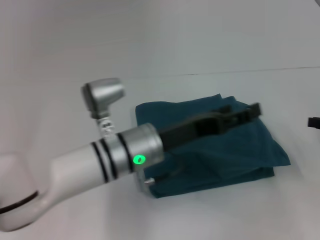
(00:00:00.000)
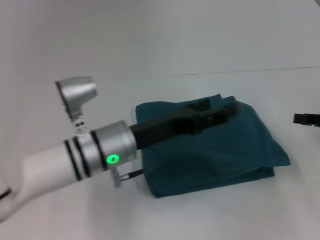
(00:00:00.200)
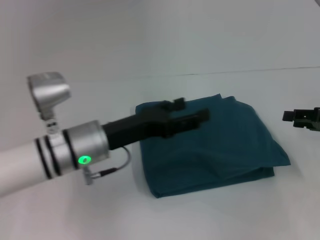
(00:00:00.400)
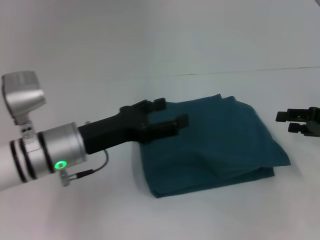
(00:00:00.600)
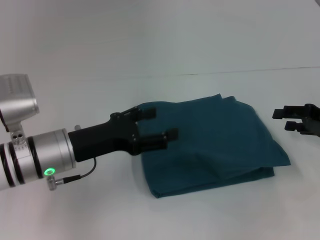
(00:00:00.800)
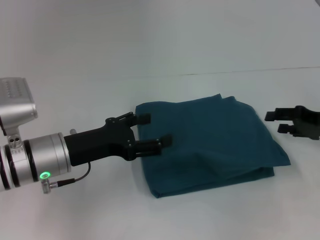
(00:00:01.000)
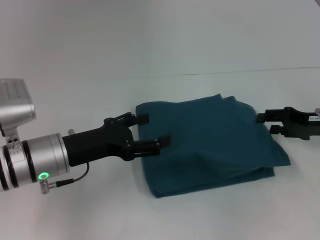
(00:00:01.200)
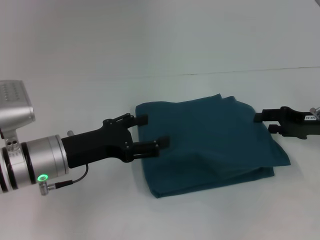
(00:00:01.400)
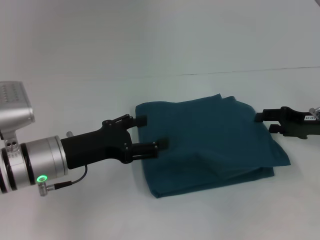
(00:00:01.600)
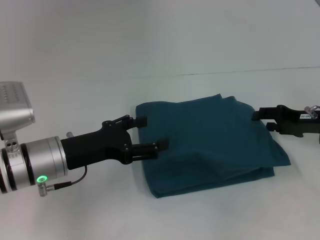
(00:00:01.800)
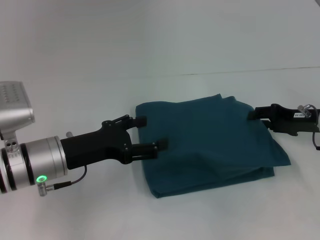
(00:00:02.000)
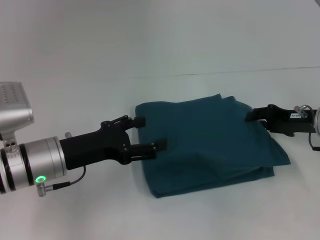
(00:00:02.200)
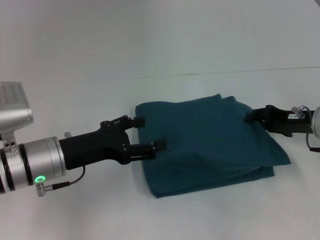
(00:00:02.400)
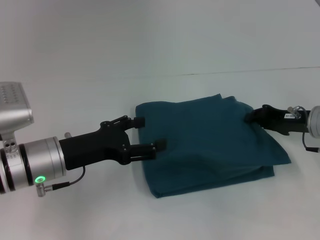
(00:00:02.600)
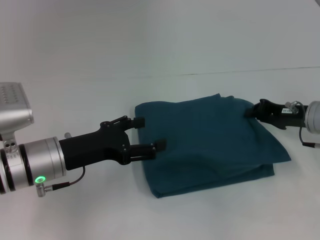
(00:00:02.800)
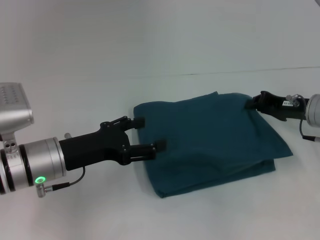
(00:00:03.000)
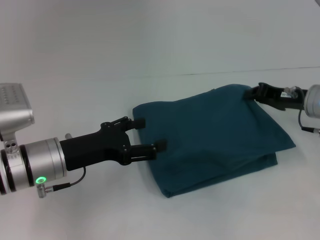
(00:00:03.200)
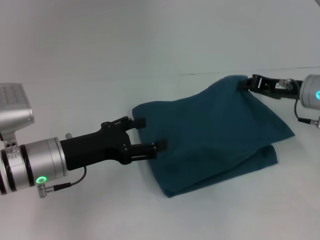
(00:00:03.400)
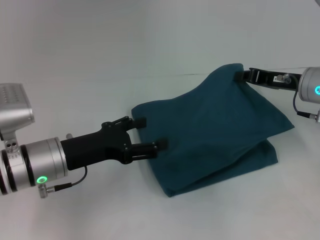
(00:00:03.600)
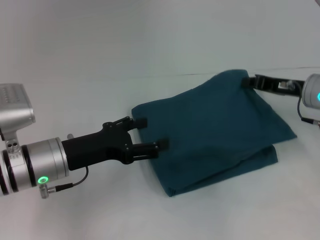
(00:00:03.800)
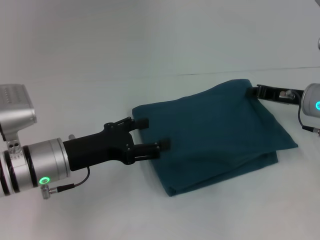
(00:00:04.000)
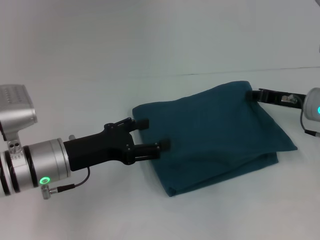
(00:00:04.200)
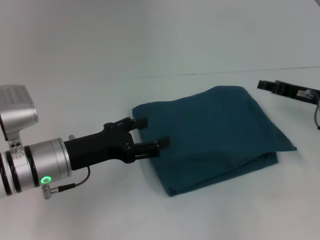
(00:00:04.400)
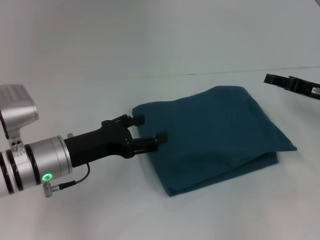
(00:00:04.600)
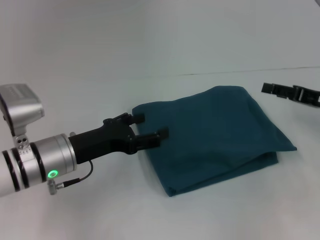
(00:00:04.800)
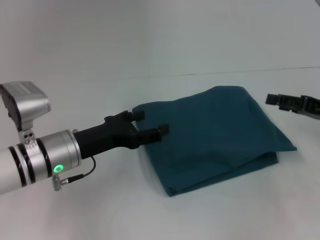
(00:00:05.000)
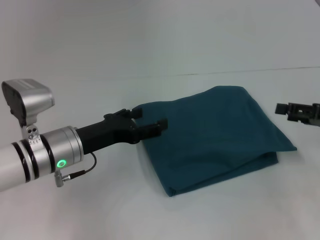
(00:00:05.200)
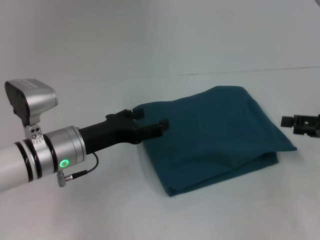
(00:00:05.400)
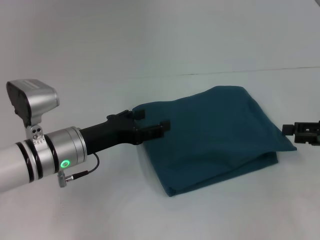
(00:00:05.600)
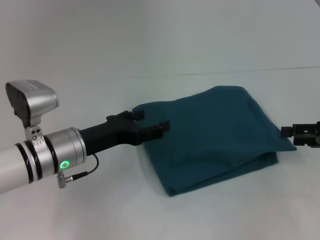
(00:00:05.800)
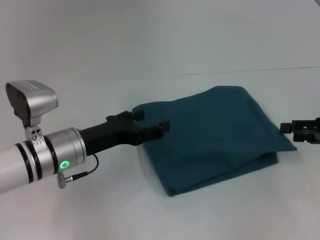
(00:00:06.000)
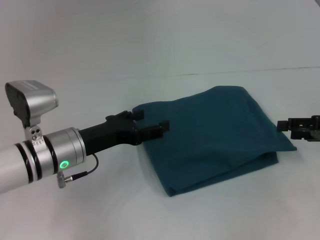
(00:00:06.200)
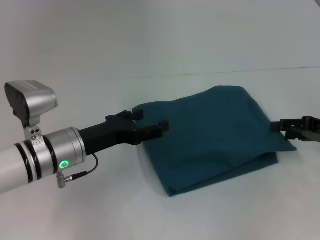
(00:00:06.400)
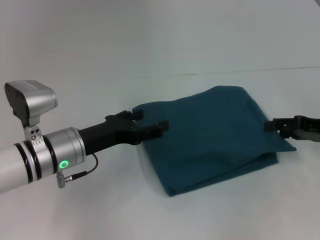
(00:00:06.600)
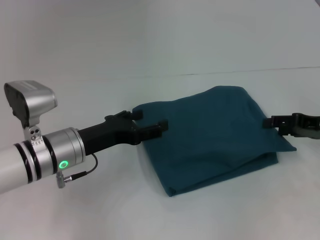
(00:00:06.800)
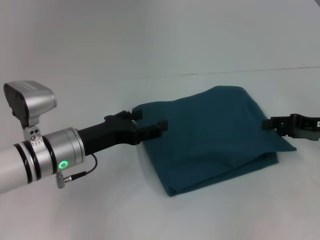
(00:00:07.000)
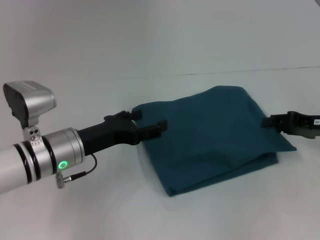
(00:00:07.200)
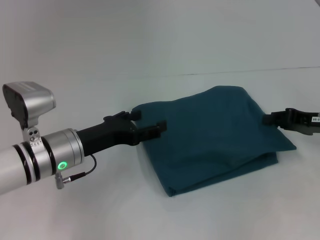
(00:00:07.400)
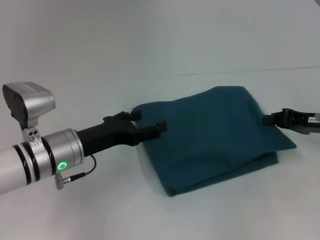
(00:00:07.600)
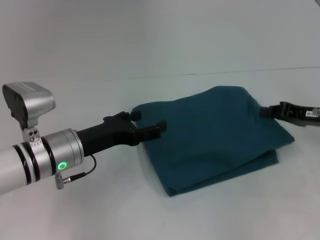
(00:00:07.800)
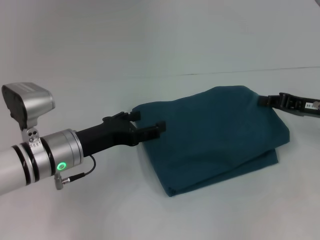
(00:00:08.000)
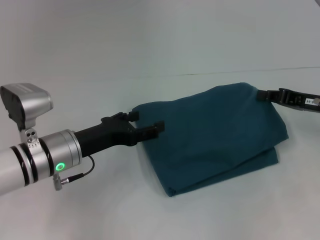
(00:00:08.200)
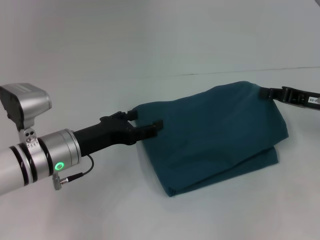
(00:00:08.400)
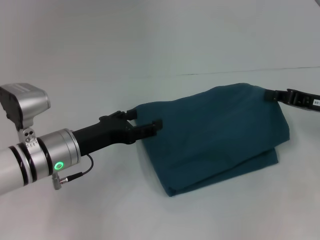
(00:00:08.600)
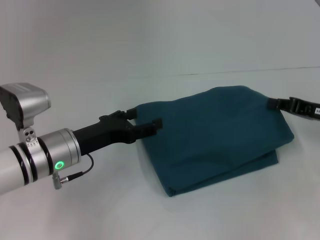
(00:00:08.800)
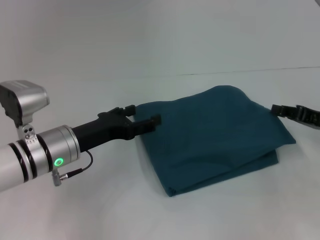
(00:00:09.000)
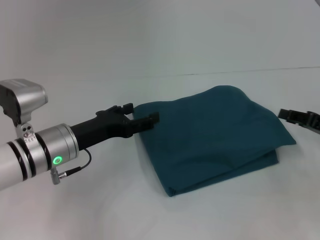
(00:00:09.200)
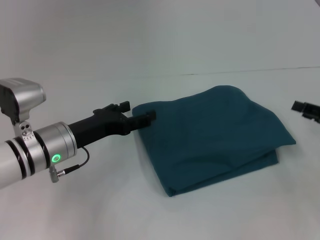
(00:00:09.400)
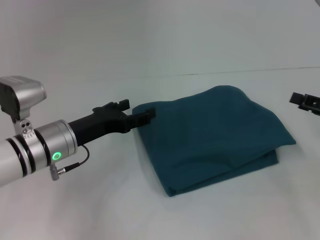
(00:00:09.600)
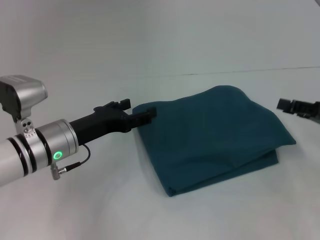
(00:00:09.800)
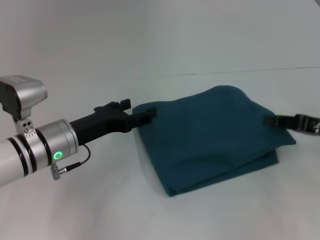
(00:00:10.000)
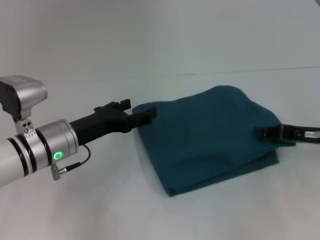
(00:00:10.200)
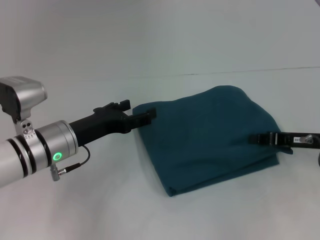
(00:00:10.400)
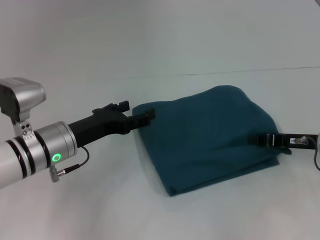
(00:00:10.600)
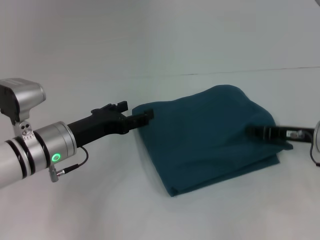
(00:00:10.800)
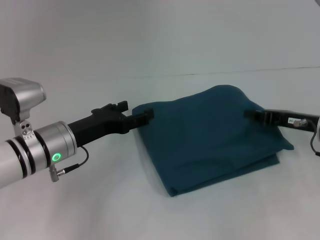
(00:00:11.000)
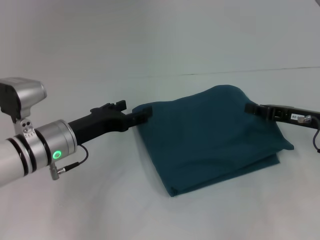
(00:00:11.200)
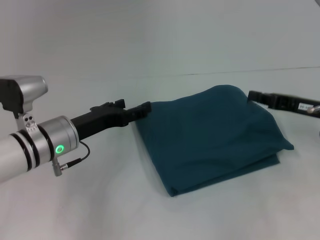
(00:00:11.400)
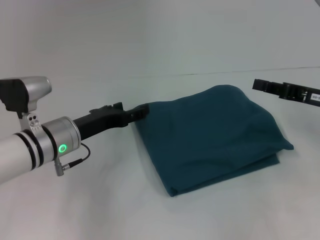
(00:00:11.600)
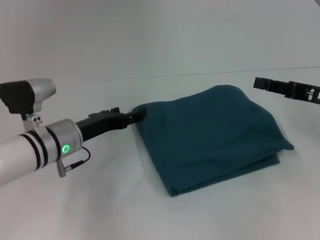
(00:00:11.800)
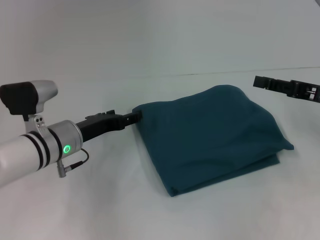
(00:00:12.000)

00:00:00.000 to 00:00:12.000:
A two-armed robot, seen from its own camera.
00:00:00.000 to 00:00:01.600: The left gripper is displaced to the left by some 15 cm, while the right gripper heads to the left, covering roughly 5 cm, and opens its fingers.
00:00:01.600 to 00:00:03.000: The right gripper closes its fingers.
00:00:03.000 to 00:00:04.400: The grippers move only a little.
00:00:04.400 to 00:00:06.000: The right gripper heads backward and to the right, covering approximately 10 cm, and opens up.
00:00:06.000 to 00:00:07.600: The right gripper changes place by roughly 5 cm, and closes up.
00:00:07.600 to 00:00:09.000: The grippers make only small movements.
00:00:09.000 to 00:00:10.400: The right gripper opens, then closes again.
00:00:10.400 to 00:00:12.000: The right gripper goes some 5 cm upward.

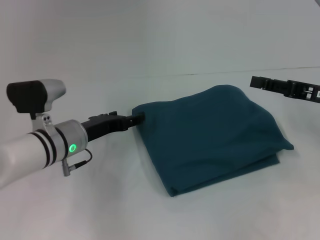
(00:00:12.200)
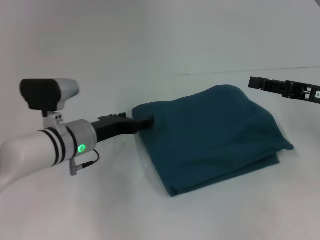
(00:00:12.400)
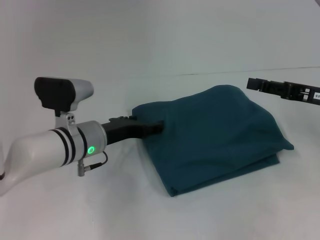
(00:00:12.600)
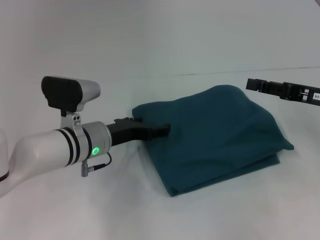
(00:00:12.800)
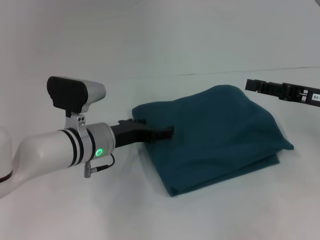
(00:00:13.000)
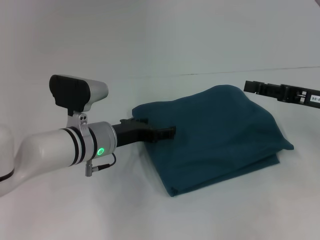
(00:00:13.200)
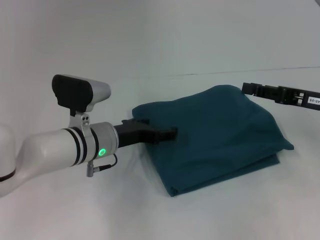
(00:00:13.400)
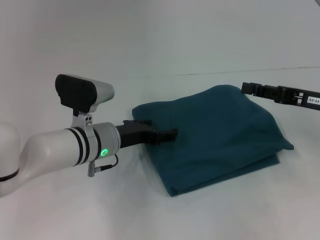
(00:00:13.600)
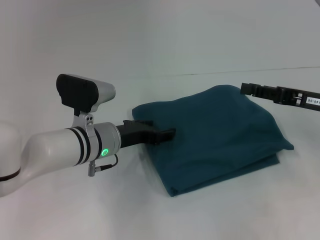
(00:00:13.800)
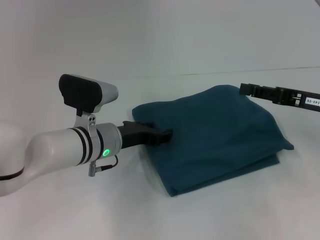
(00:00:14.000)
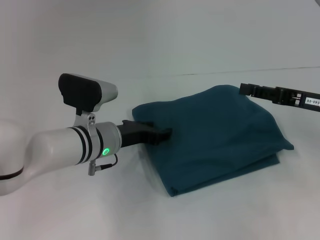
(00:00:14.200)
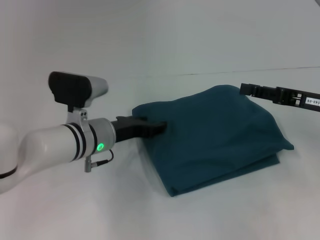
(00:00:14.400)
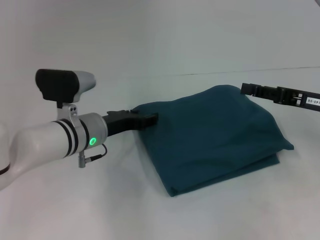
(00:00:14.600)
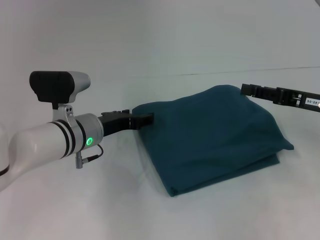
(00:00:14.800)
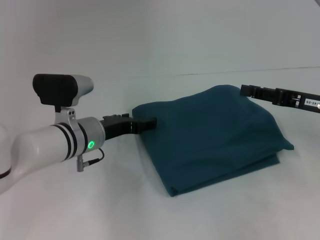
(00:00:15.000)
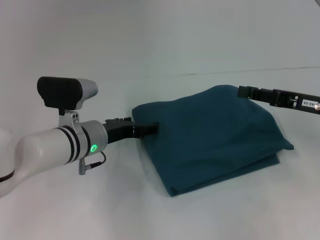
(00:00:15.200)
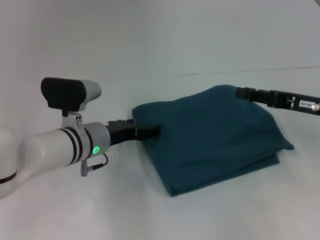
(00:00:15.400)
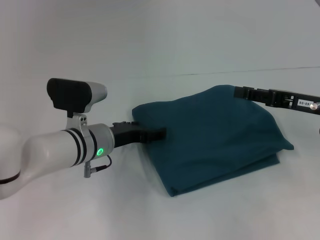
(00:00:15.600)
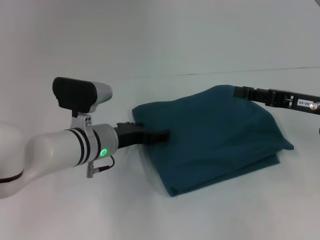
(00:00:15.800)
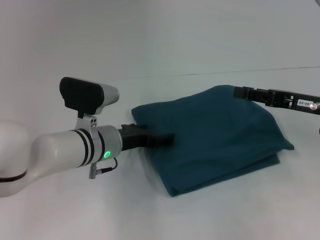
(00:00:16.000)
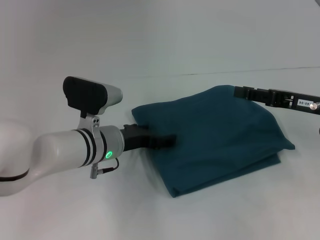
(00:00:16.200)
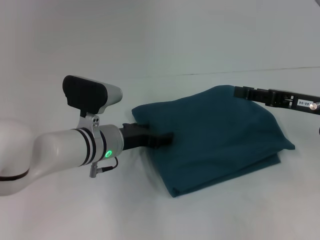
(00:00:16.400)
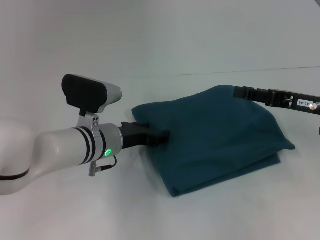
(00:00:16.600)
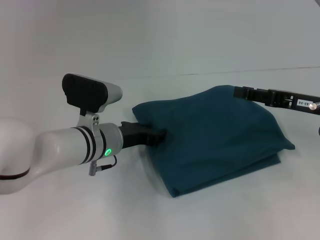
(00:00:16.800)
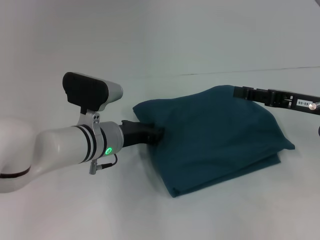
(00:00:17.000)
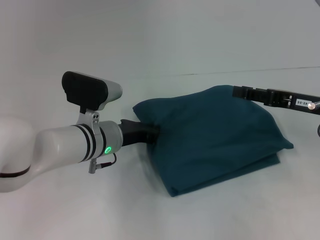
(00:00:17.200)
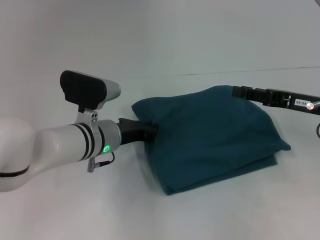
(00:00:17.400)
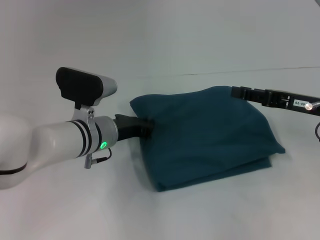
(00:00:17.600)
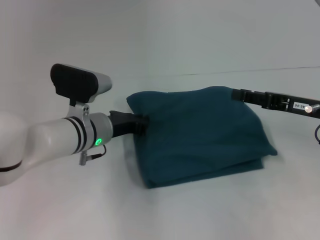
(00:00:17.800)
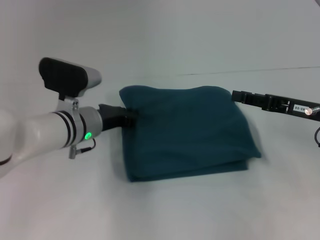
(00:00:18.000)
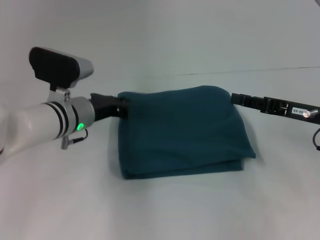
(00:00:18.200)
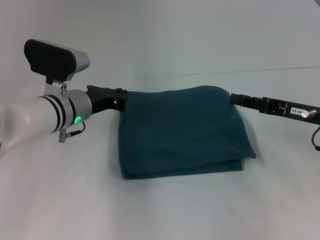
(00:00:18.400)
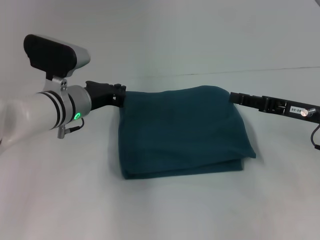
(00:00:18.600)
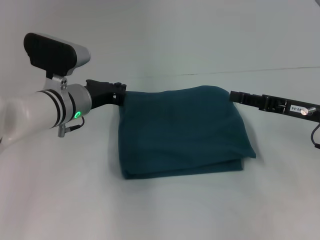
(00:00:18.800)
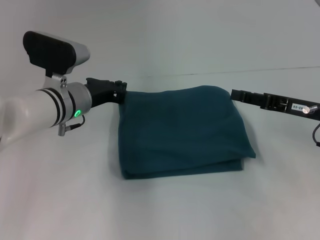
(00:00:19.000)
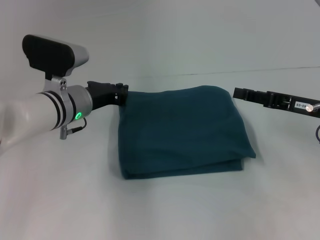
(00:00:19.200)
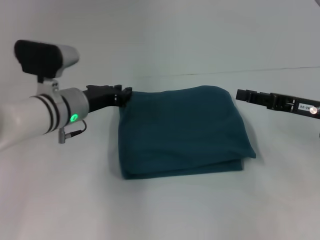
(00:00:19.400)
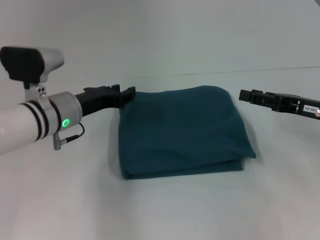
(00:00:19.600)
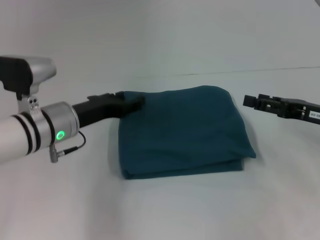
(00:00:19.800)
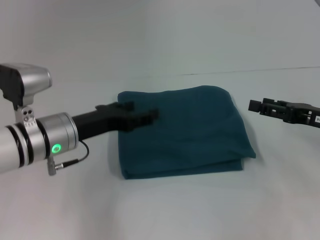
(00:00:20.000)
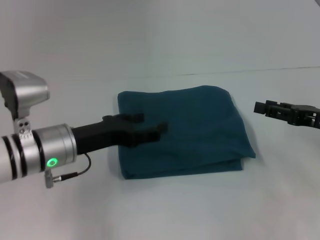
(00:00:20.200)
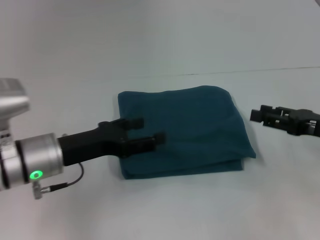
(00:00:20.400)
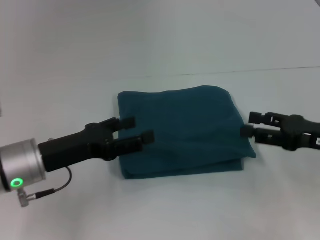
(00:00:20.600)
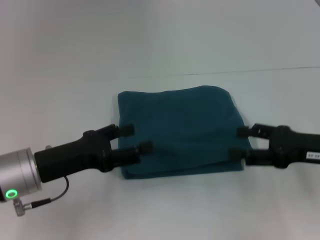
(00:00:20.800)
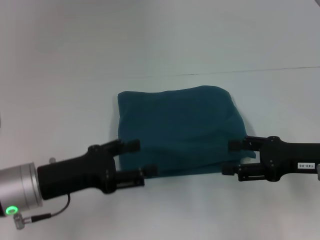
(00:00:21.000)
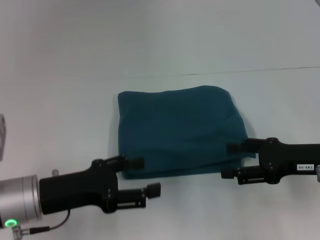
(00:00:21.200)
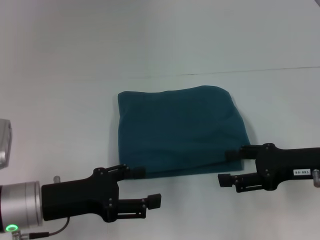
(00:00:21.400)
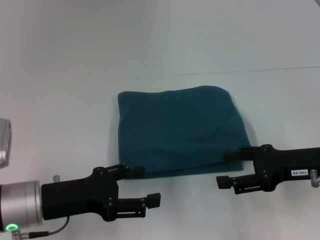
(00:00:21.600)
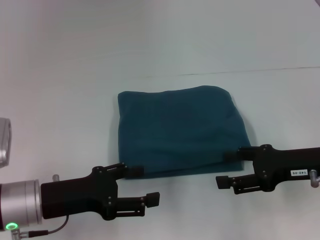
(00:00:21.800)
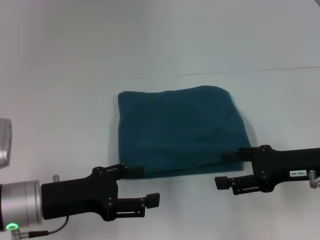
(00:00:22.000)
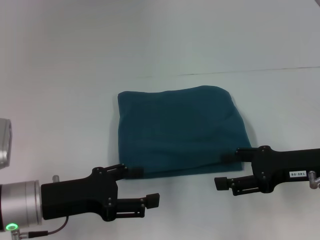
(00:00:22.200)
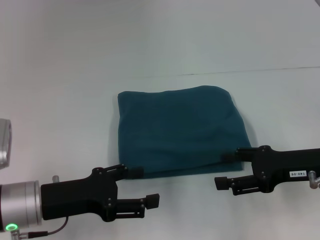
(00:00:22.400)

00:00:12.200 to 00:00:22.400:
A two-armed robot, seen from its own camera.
00:00:12.200 to 00:00:13.600: The left gripper goes some 5 cm to the right.
00:00:13.600 to 00:00:16.600: There are only small adjustments of the grippers.
00:00:16.600 to 00:00:18.000: The left gripper closes.
00:00:18.000 to 00:00:19.400: The grippers stay close to where they were, moving slightly.
00:00:19.400 to 00:00:21.000: The left gripper travels backward and to the left by about 15 cm, and opens; the right gripper changes place by roughly 5 cm, and opens its fingers.
00:00:21.000 to 00:00:22.400: The grippers stay close to where they were, moving slightly.
